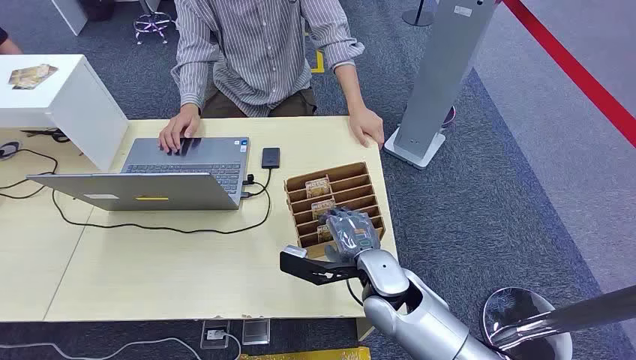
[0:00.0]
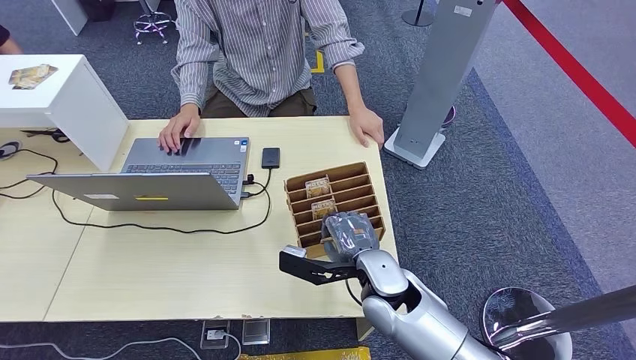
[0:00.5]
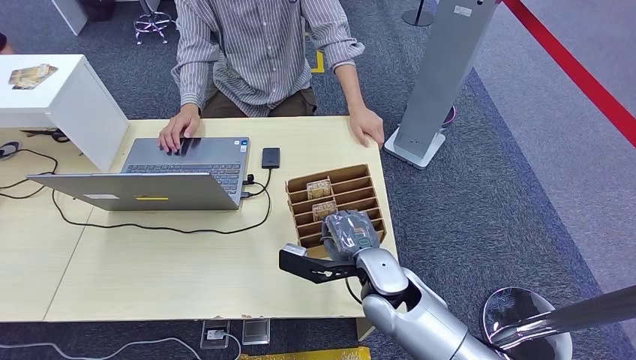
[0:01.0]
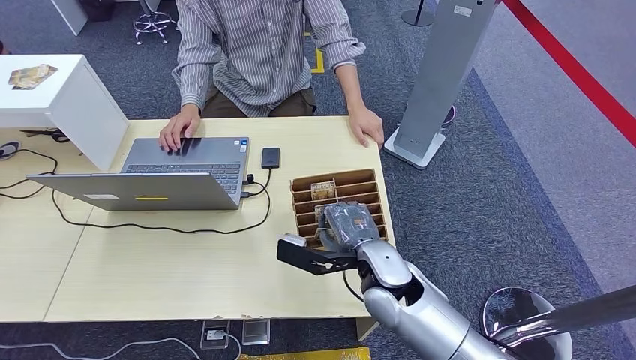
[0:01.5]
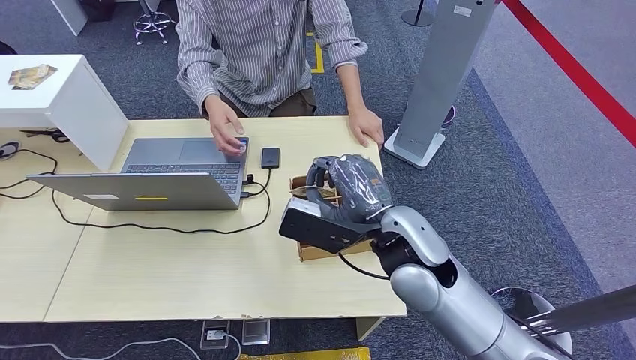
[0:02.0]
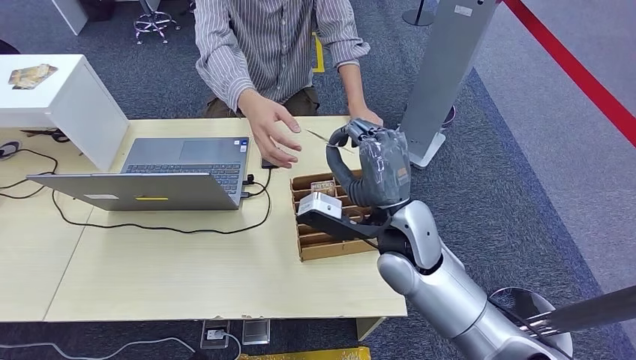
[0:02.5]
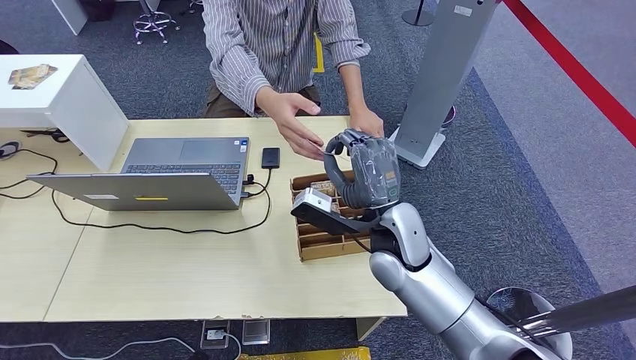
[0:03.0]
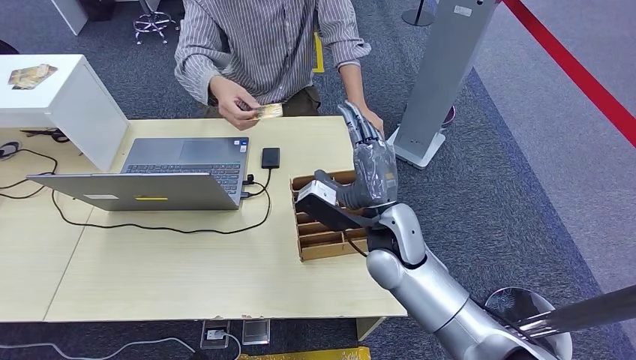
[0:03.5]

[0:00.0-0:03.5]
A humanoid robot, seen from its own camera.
Step, 0:00.0 to 0:01.5: Pick up the room card from the card holder.
Step, 0:02.5 to 0:03.5: Hand the room card to the target.
0:02.0 to 0:03.5: The right hand shifts some 5 cm downward.
